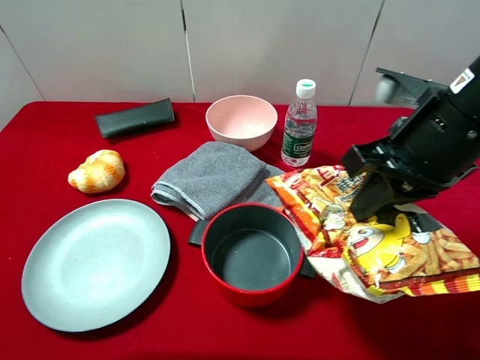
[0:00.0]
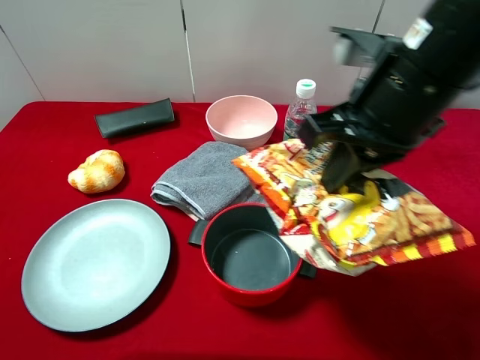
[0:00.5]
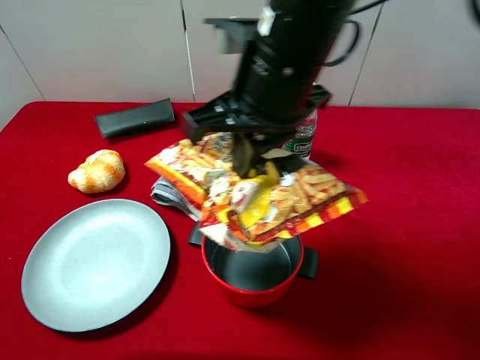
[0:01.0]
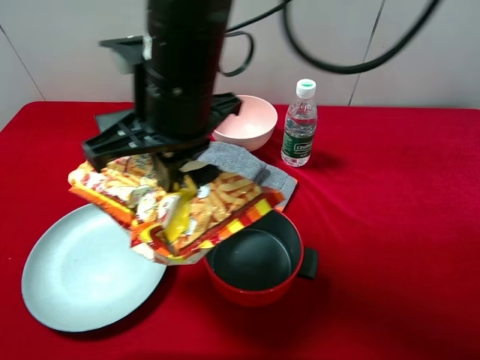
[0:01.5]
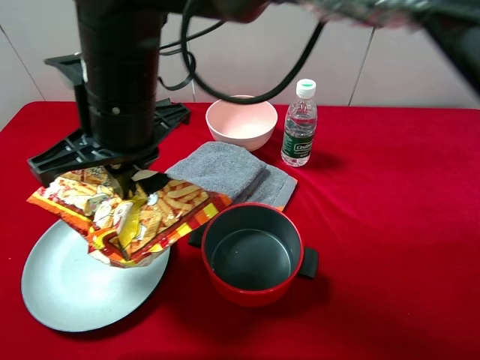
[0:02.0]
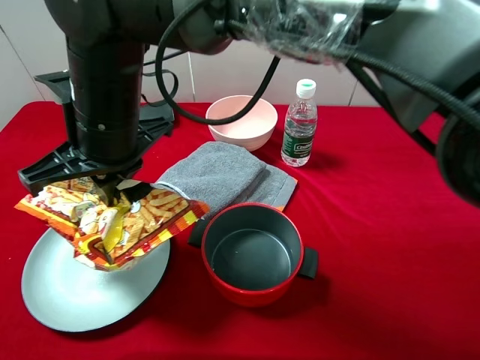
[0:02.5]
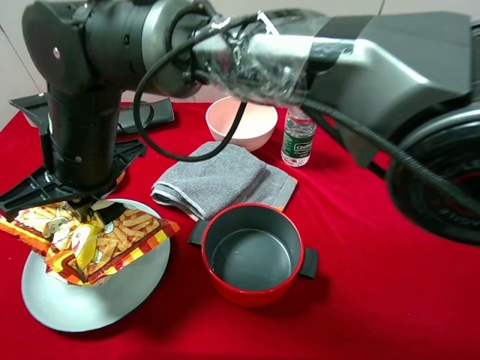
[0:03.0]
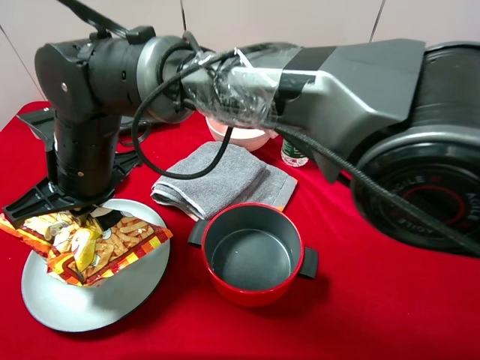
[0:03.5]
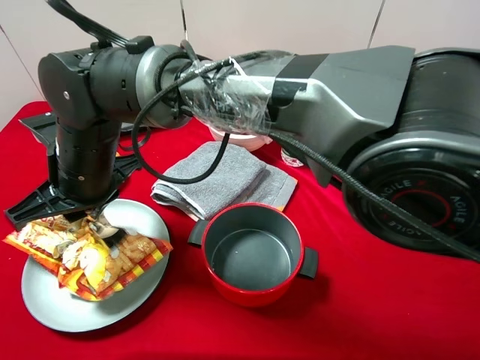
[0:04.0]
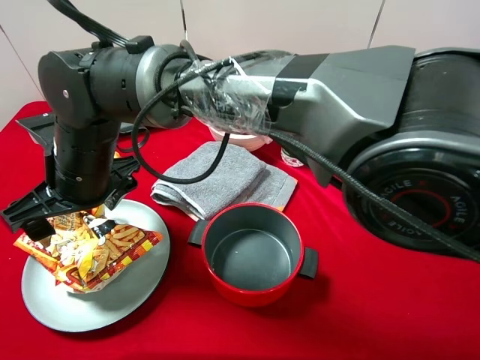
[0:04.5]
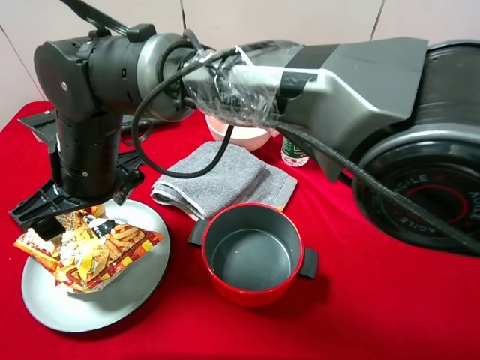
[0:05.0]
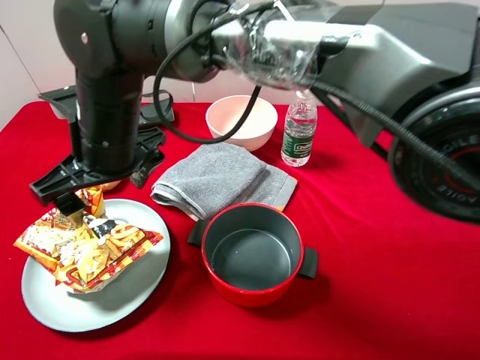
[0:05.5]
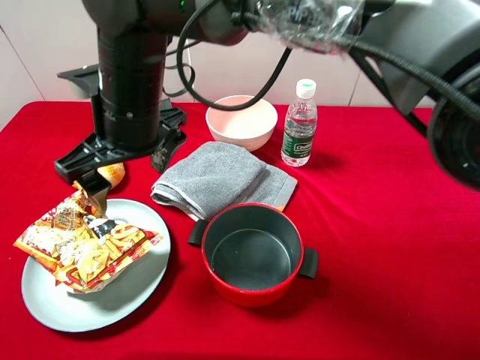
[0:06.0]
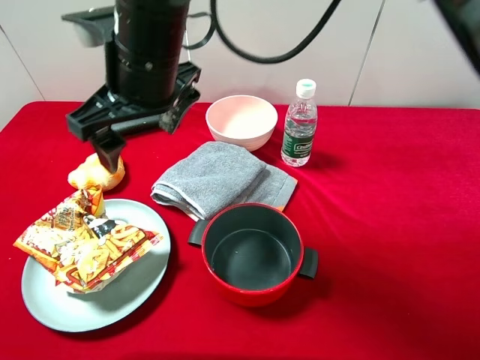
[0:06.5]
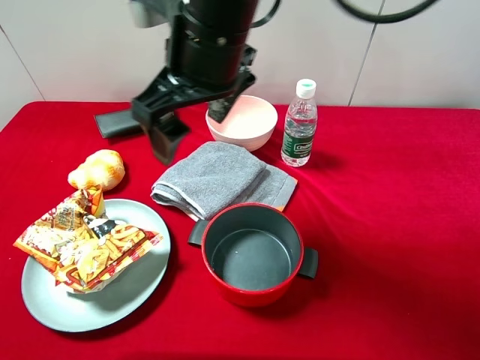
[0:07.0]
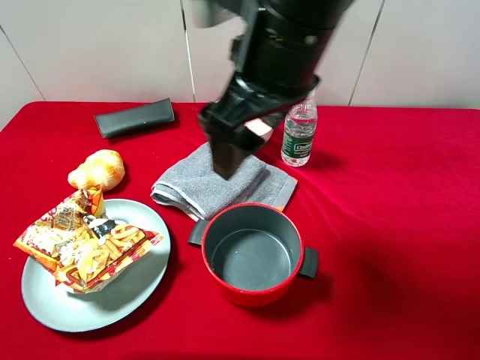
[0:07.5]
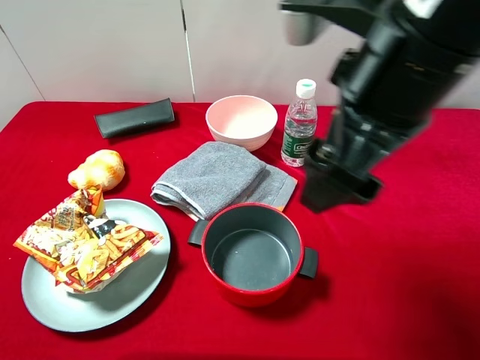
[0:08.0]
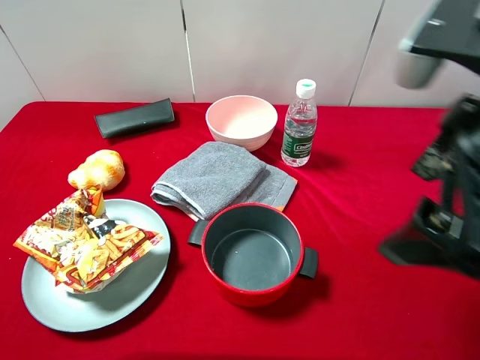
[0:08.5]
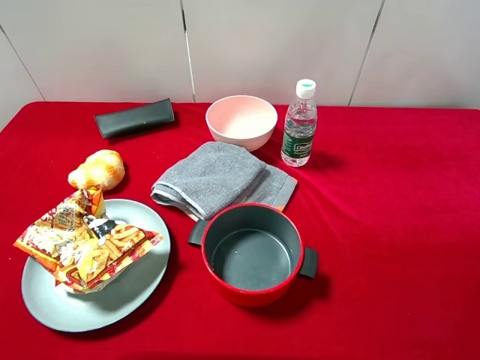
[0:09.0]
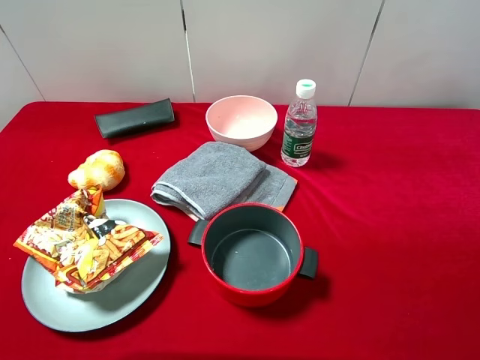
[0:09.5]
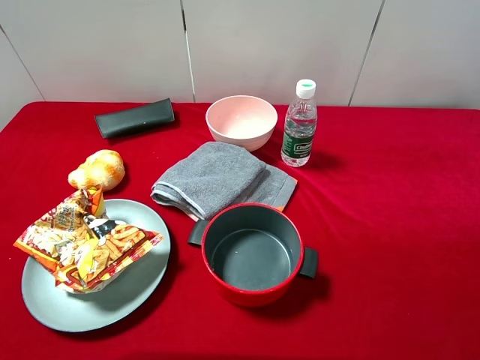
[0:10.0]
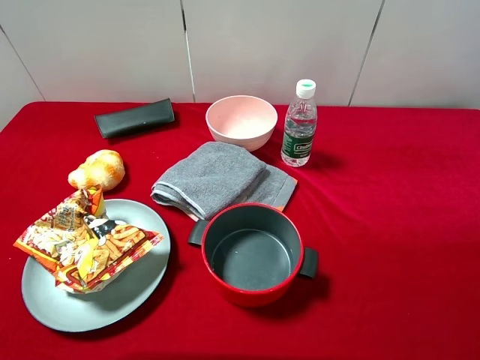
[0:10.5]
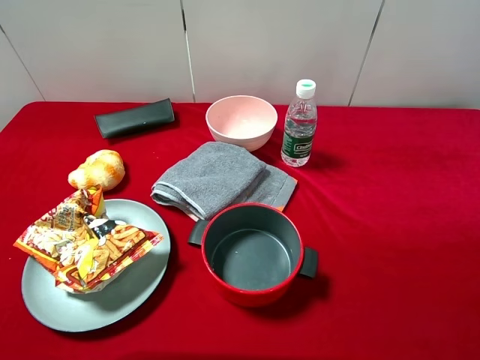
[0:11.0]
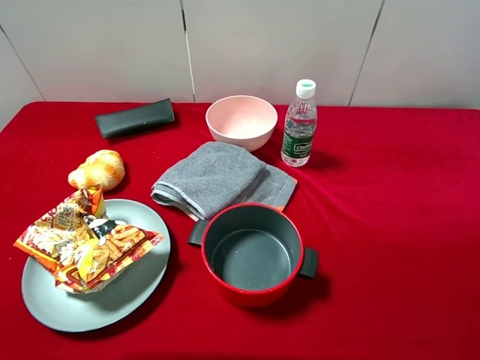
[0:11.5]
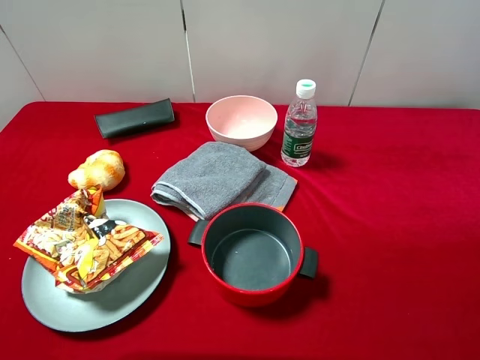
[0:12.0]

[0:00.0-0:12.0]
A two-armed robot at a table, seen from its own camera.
Task of the whole recording: pick up an item with a gripper and place it in a random container on the desktop.
0:00.0 to 0:02.0: The right gripper is displaced to the left by about 30 cm.
0:02.0 to 0:04.0: The right gripper is displaced downward and to the left by roughly 10 cm.
0:04.0 to 0:06.0: The right gripper heads upward and to the right, covering roughly 10 cm, and opens its fingers.
0:06.0 to 0:08.0: The right gripper shifts roughly 25 cm to the right and upward.
0:08.0 to 0:10.0: The right gripper travels to the right and backward by roughly 25 cm.
